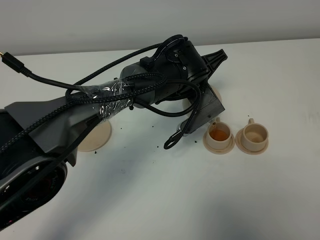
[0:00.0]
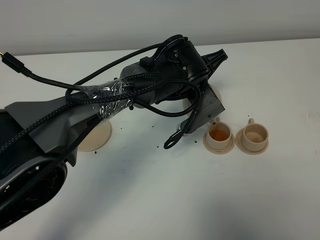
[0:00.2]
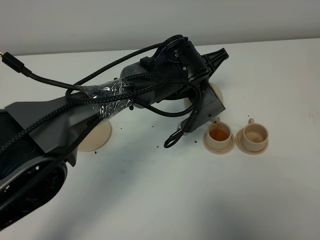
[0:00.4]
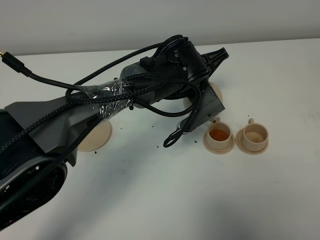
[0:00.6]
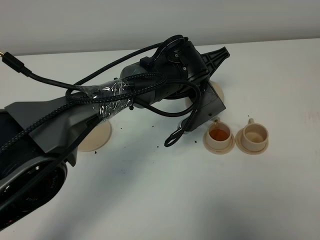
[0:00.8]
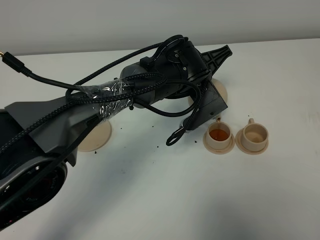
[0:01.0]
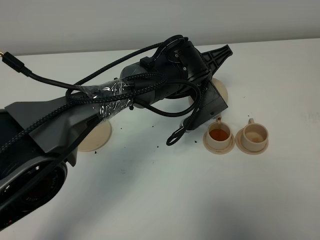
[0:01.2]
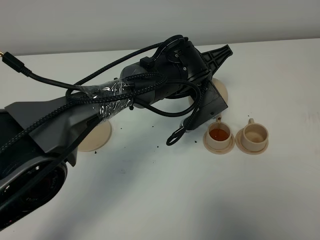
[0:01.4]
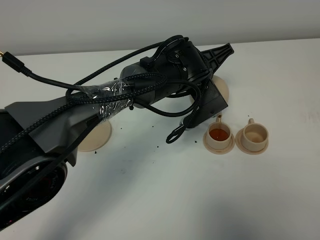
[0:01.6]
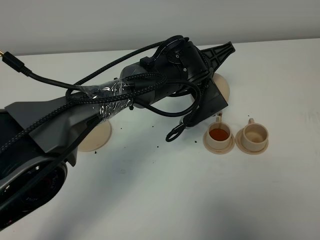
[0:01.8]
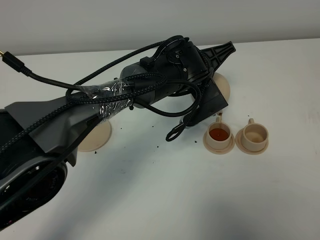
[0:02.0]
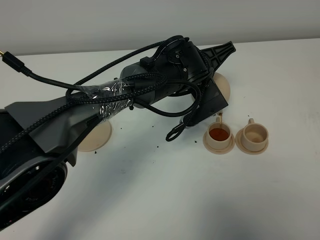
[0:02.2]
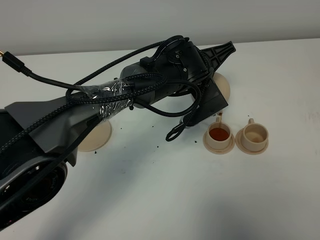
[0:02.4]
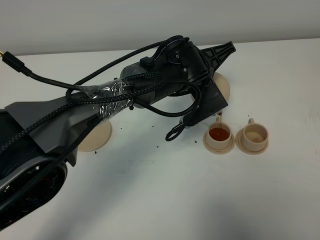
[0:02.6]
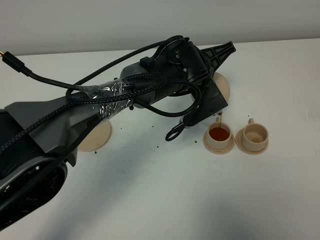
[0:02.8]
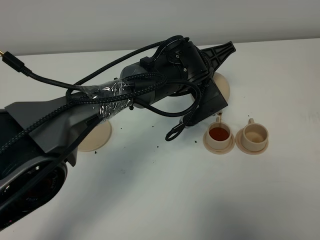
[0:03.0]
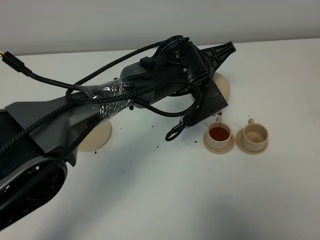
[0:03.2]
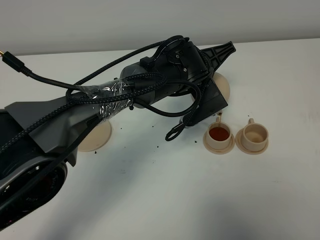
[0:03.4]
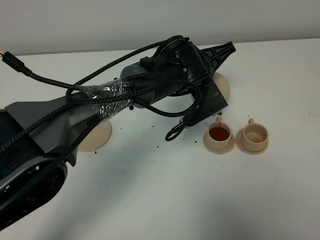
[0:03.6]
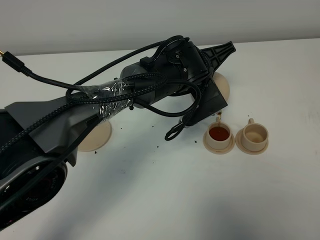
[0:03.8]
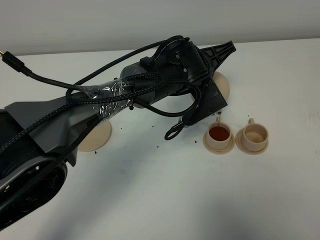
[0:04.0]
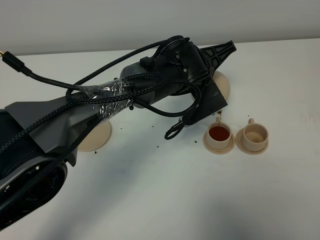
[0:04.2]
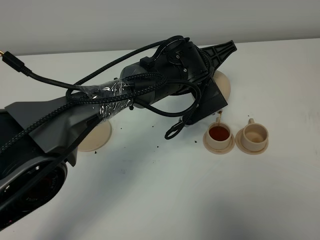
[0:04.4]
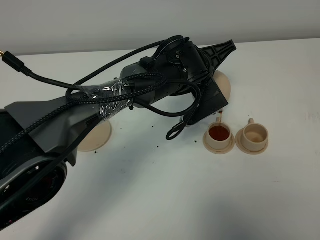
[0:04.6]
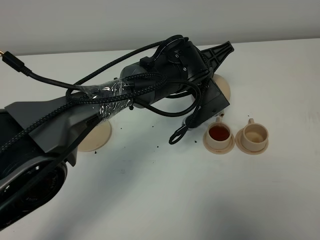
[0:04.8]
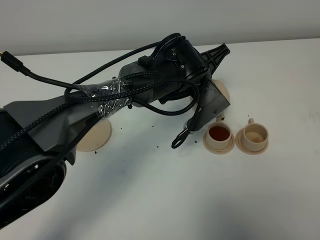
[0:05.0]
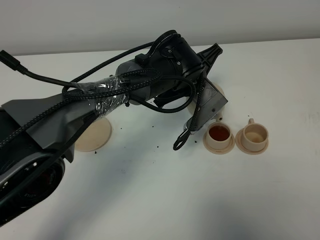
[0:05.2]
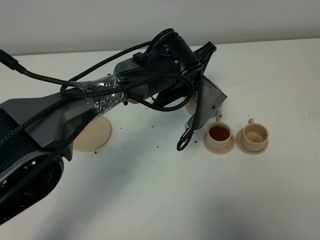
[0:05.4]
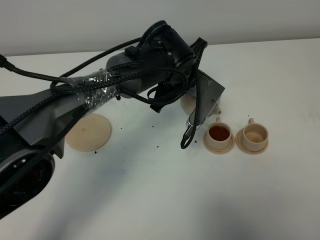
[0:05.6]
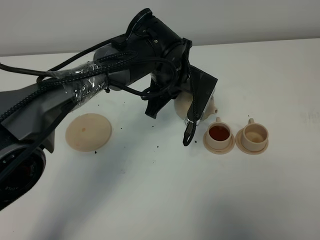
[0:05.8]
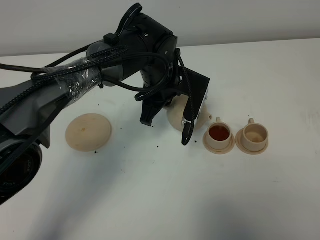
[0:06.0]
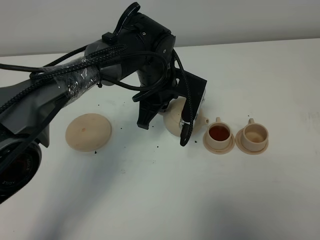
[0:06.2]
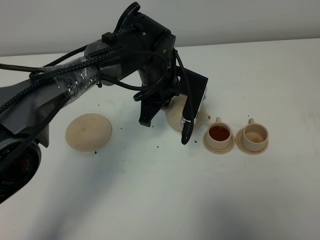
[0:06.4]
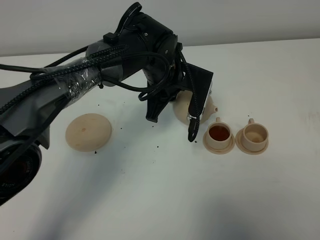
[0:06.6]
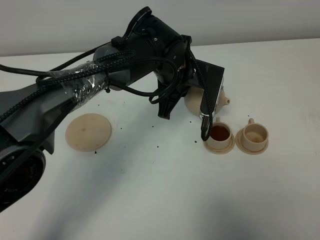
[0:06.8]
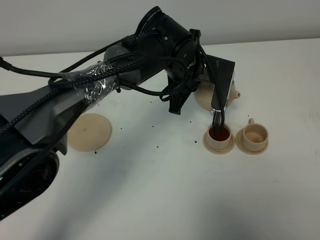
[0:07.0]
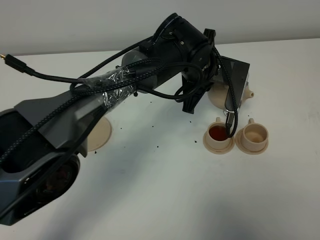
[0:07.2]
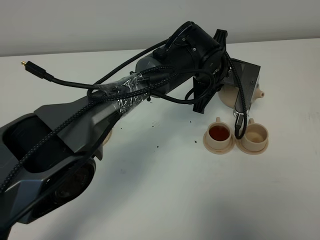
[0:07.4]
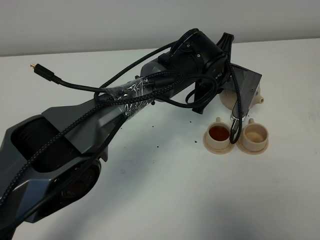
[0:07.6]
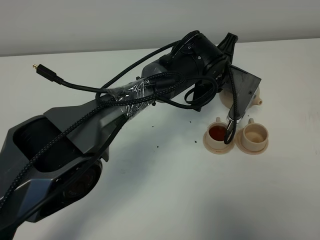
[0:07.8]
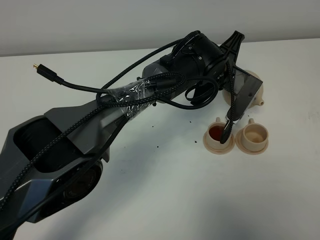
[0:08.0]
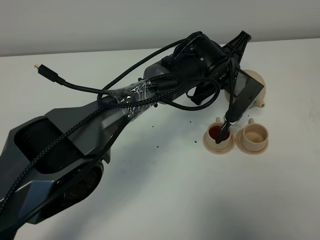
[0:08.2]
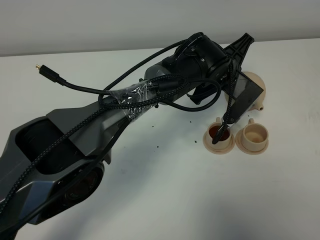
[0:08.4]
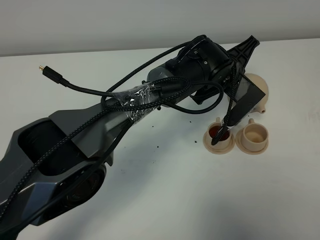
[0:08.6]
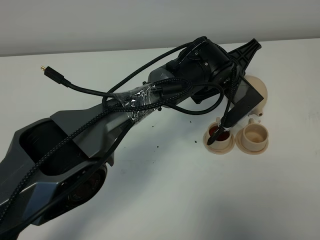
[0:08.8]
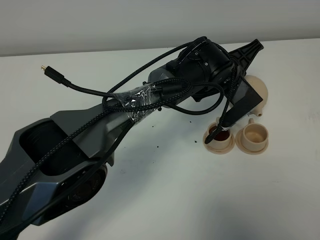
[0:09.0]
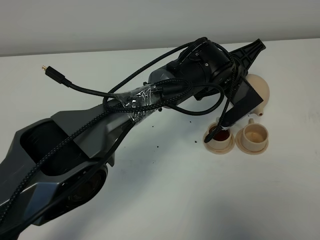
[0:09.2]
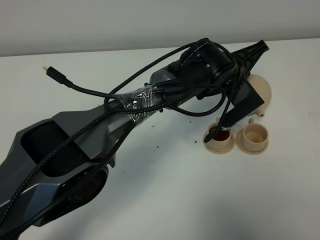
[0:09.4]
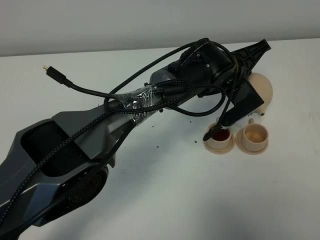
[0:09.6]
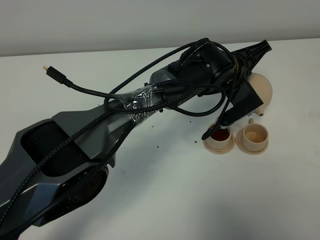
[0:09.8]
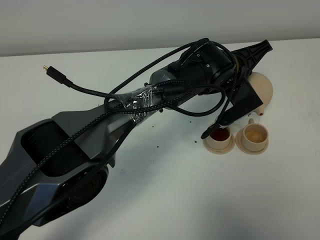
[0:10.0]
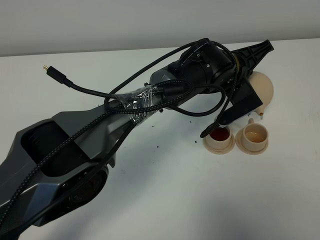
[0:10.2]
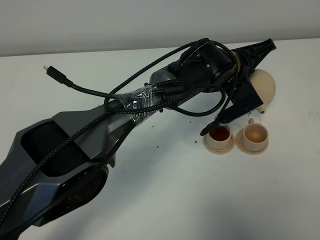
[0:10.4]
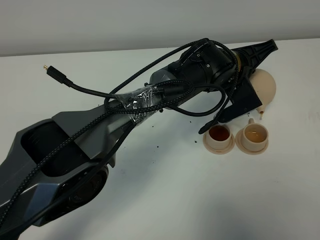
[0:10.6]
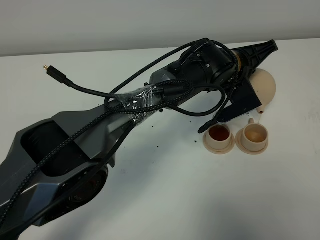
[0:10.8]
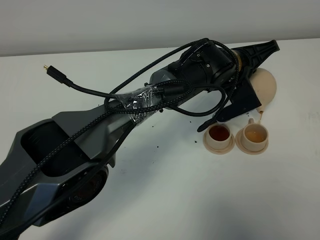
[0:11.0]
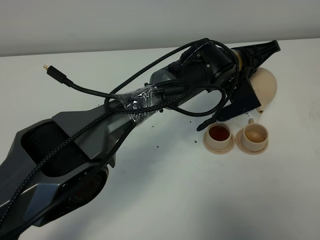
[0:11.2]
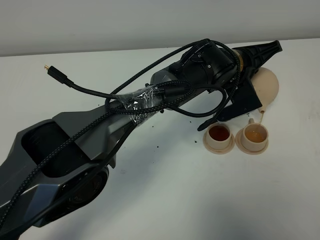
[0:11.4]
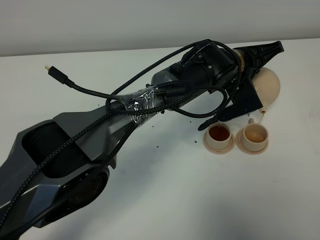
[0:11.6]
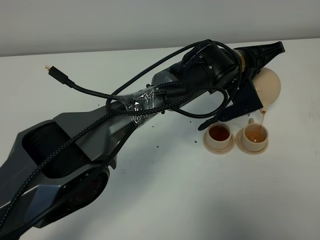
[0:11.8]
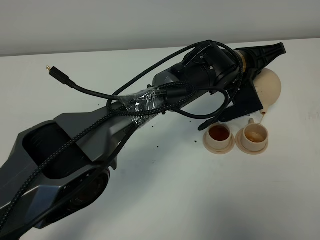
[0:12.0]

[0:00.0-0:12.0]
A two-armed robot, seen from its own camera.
Task of the whole recording: grasp the brown teapot and pour the tea into the two brown teacups one by one, put the brown teapot back in its original place.
0:00.0 to 0:01.6: The grippers stay close to where they were, moving slightly.
0:01.6 to 0:04.4: Both grippers stay put.
0:04.4 to 0:06.0: The left gripper shifts some 5 cm to the left.
0:06.0 to 0:07.6: The left gripper goes roughly 10 cm to the right.
0:09.0 to 0:10.4: There are only small adjustments of the grippers.
0:10.4 to 0:12.0: The grippers move only a little.

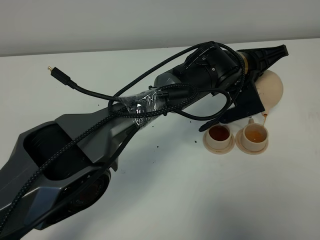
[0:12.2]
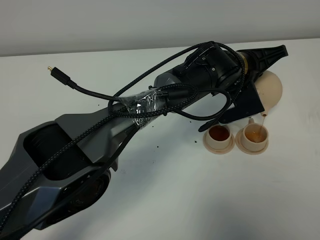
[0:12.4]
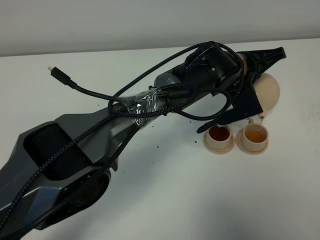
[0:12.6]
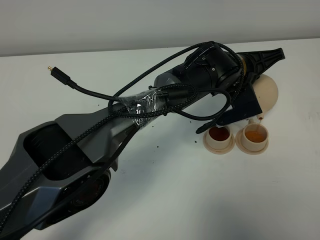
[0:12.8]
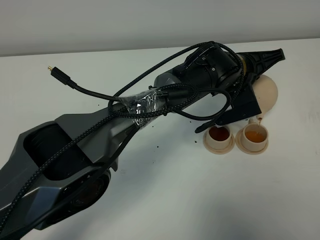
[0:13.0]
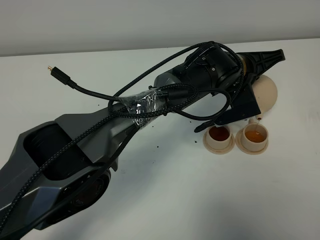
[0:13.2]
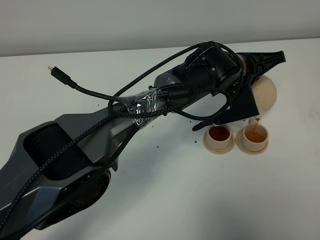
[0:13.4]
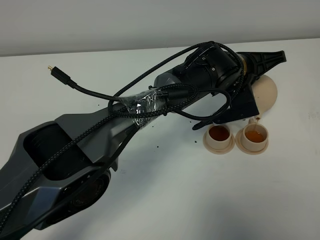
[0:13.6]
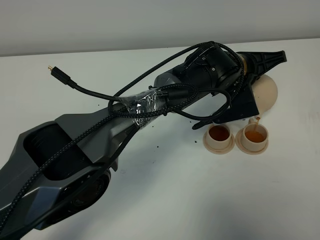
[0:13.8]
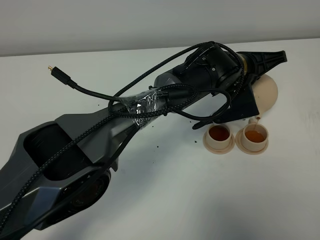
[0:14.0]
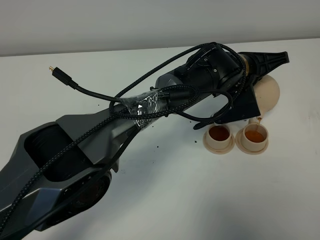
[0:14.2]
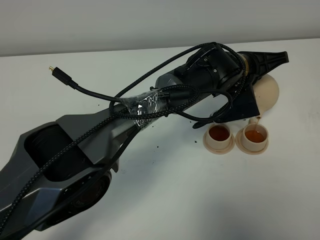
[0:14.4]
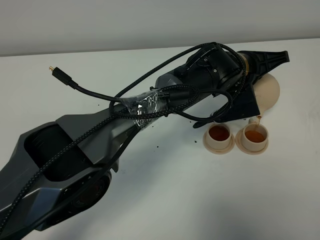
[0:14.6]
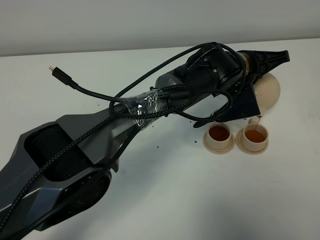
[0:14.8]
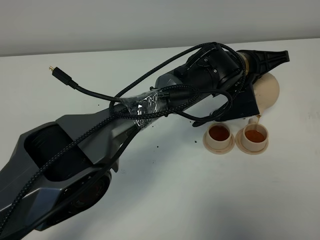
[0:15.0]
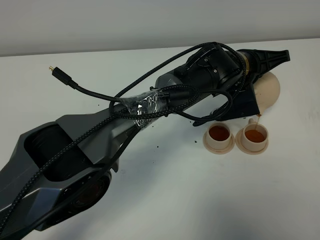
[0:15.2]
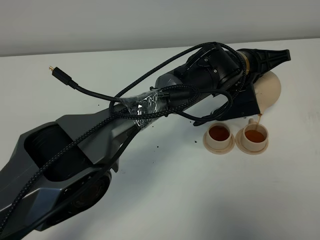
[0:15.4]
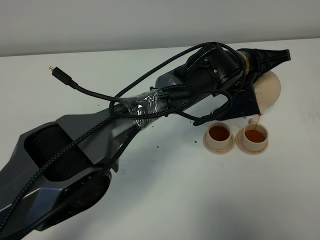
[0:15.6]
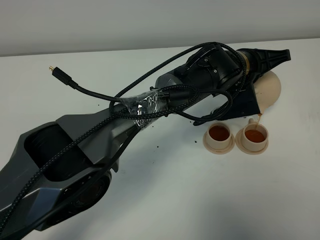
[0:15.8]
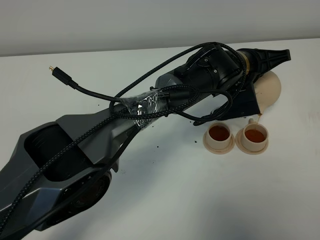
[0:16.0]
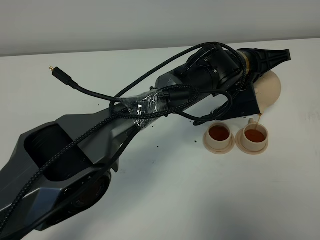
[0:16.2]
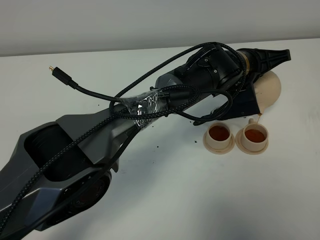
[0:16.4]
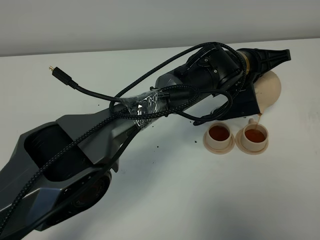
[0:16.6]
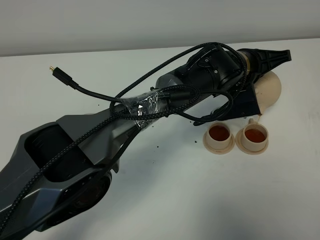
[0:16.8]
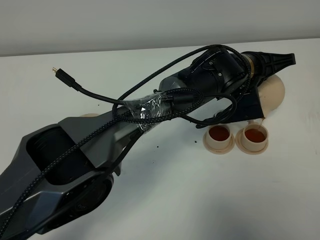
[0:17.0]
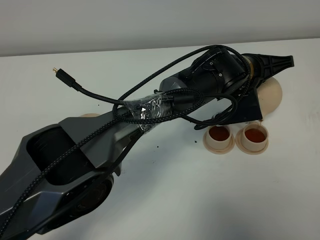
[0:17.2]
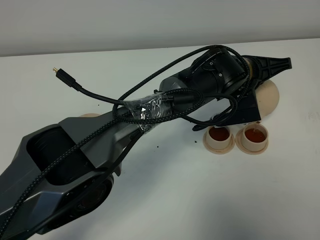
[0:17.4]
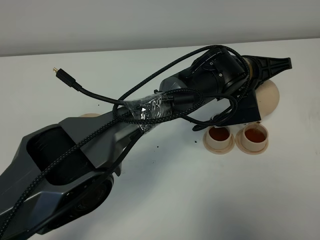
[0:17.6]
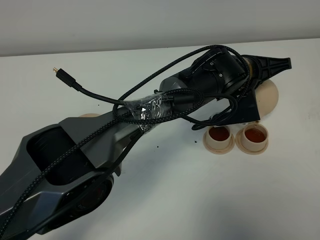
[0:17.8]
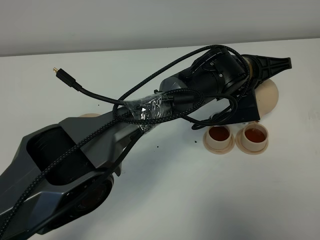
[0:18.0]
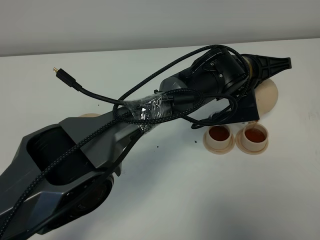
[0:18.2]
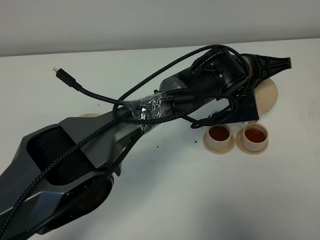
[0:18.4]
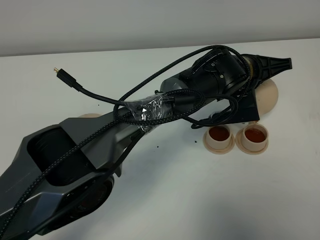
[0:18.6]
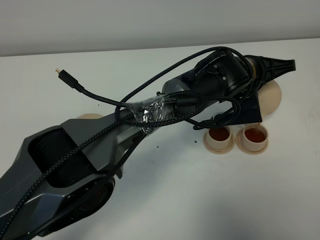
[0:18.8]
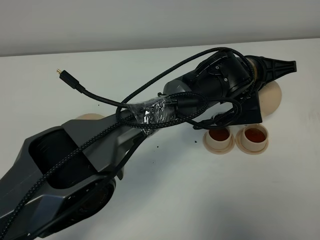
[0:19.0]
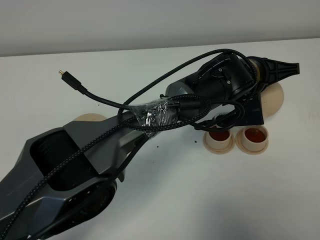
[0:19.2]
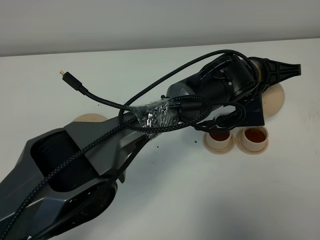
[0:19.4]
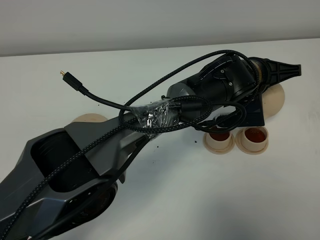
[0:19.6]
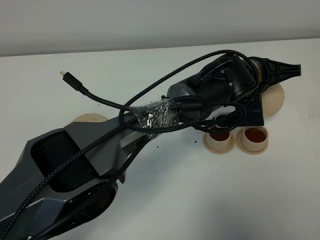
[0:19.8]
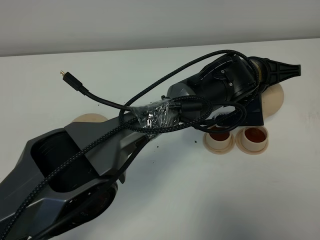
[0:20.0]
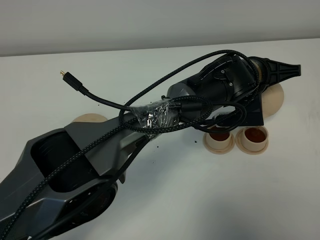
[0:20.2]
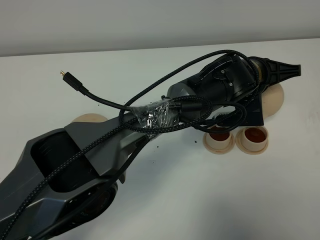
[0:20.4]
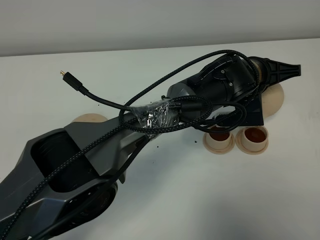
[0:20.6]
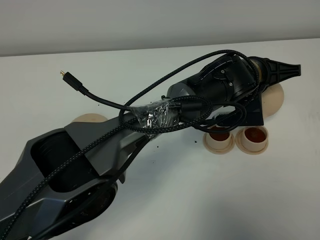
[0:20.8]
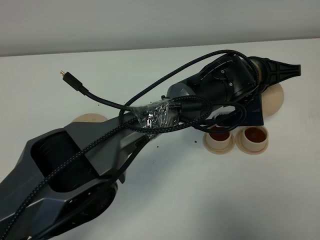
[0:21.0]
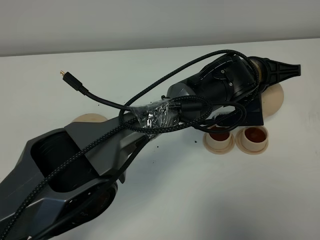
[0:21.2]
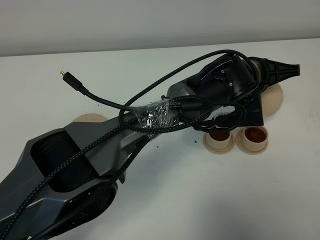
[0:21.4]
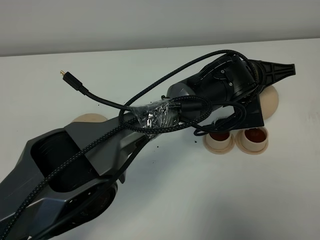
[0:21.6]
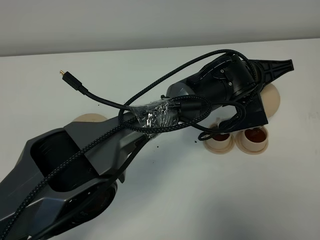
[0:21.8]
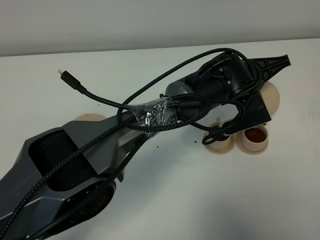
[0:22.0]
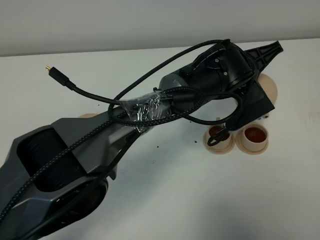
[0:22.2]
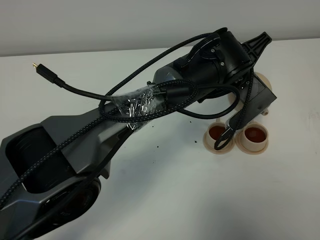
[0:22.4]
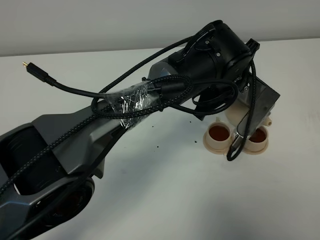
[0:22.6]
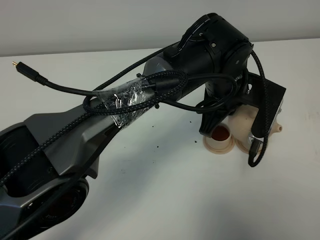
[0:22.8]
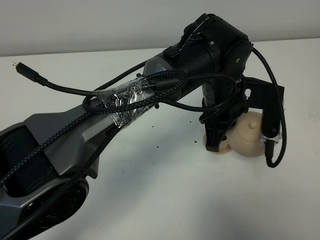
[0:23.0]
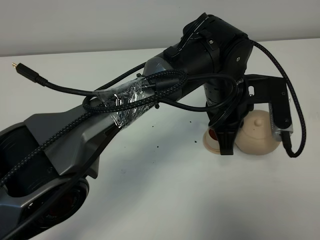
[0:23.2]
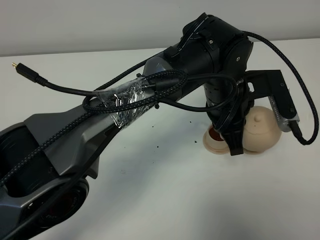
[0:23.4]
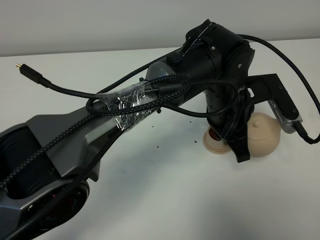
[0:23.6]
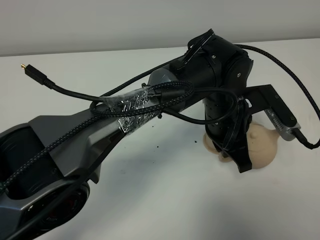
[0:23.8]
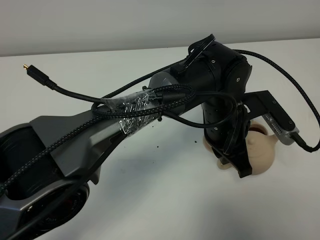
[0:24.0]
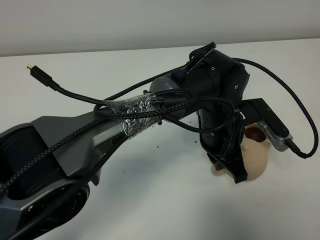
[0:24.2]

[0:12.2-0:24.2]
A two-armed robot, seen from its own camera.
Task of the whole recording: grasp the brown teapot and pour the tea into the two brown teacups one by one, put the brown teapot back in its original place.
Step, 0:12.2 to 0:22.4: Pour tea into the teacup with the left gripper.
0:12.2 to 0:13.8: The grippers move only a little.
0:13.8 to 0:16.6: Both grippers stay about where they are.
0:16.6 to 0:18.2: Both grippers stay put.
0:18.2 to 0:19.8: The grippers stay close to where they were, moving slightly.
0:19.8 to 0:21.2: The two grippers keep their place.
0:21.2 to 0:22.6: The left gripper moves roughly 5 cm.
0:22.6 to 0:24.2: The left gripper heads backward and downward, covering some 5 cm.
